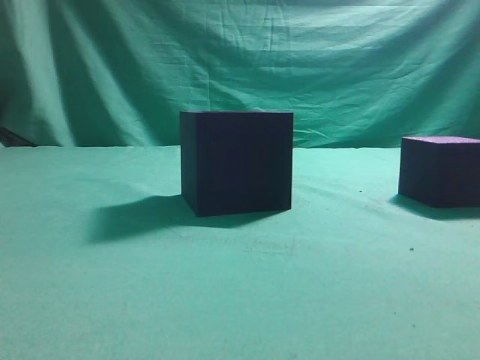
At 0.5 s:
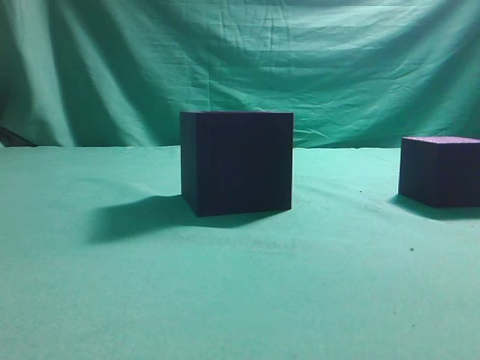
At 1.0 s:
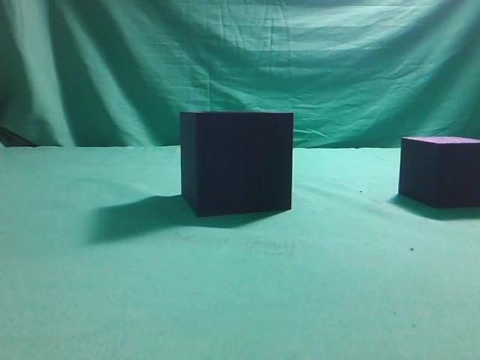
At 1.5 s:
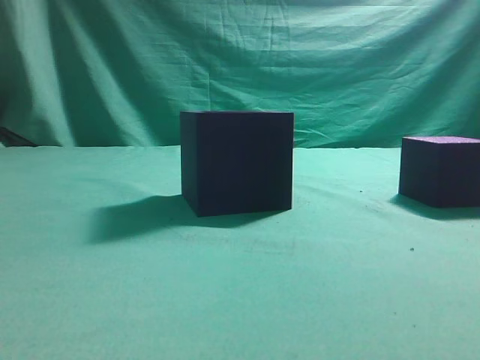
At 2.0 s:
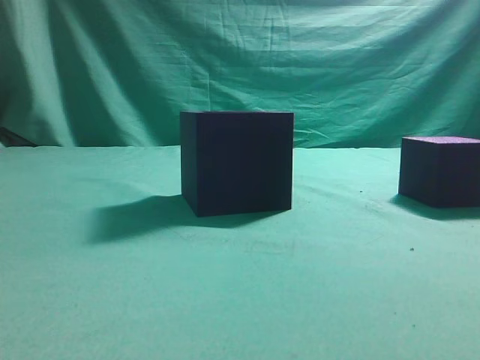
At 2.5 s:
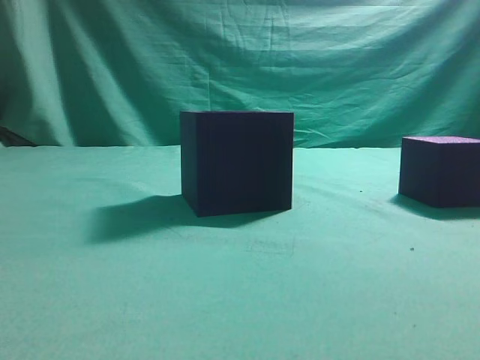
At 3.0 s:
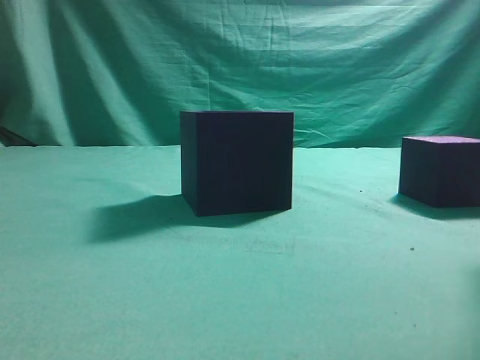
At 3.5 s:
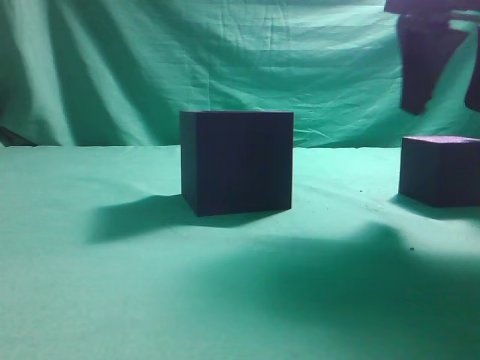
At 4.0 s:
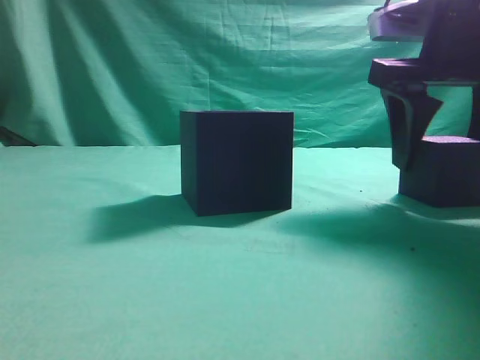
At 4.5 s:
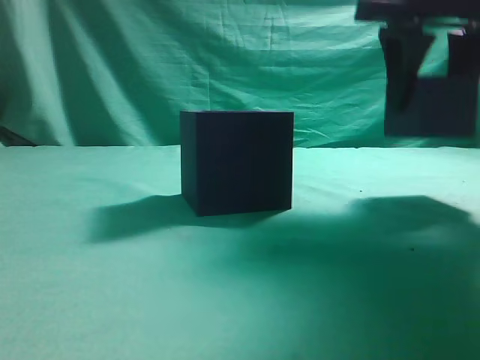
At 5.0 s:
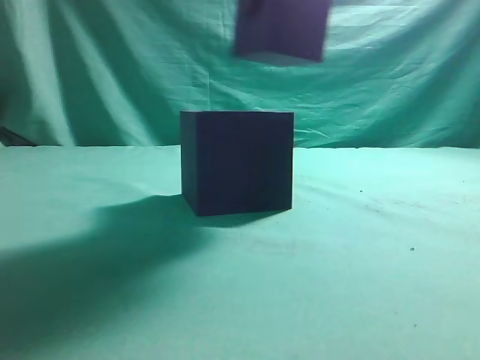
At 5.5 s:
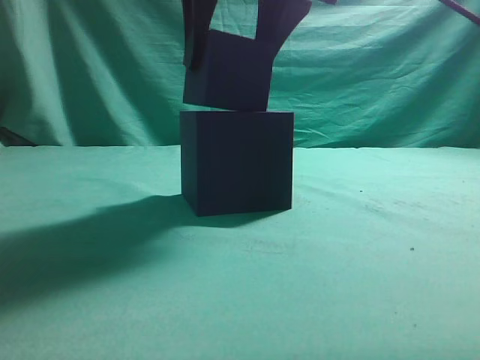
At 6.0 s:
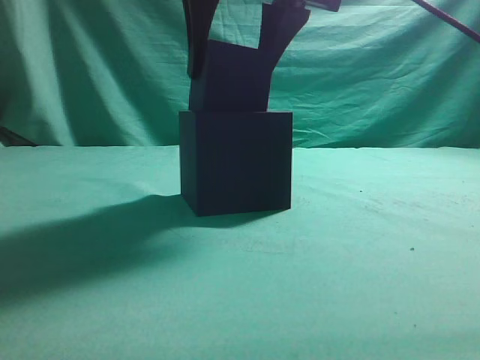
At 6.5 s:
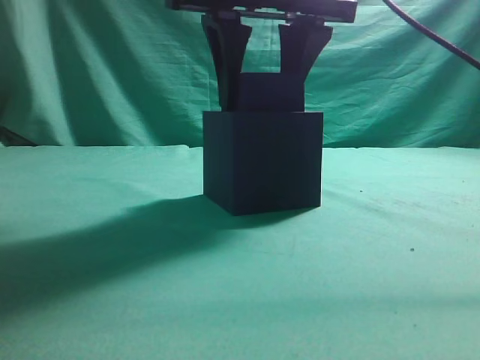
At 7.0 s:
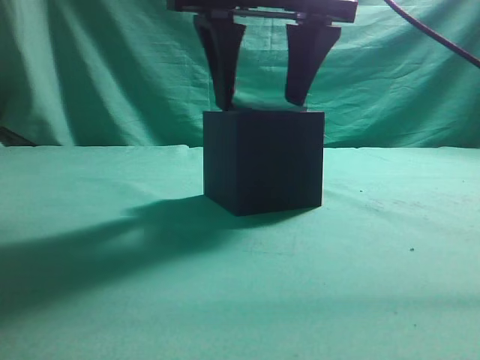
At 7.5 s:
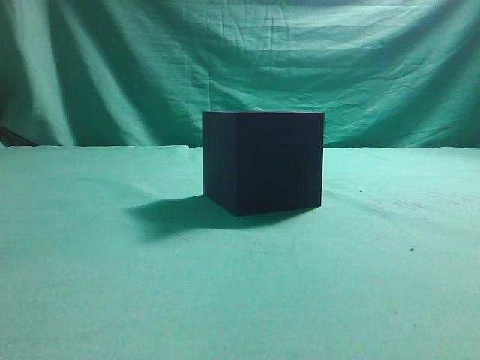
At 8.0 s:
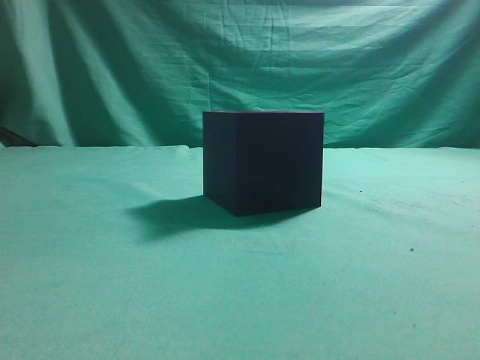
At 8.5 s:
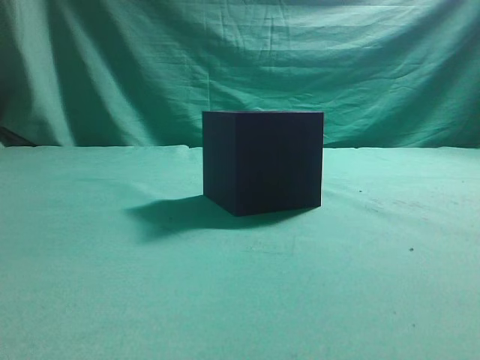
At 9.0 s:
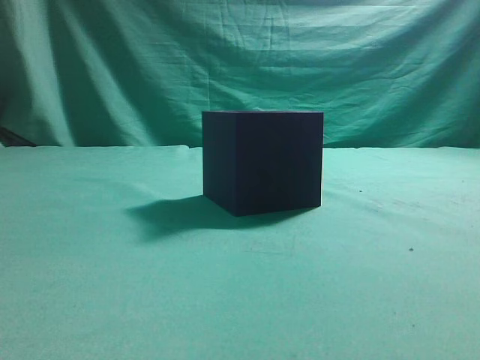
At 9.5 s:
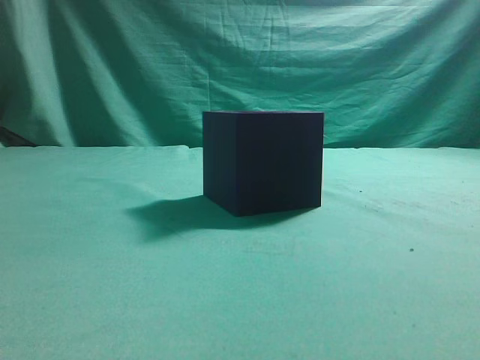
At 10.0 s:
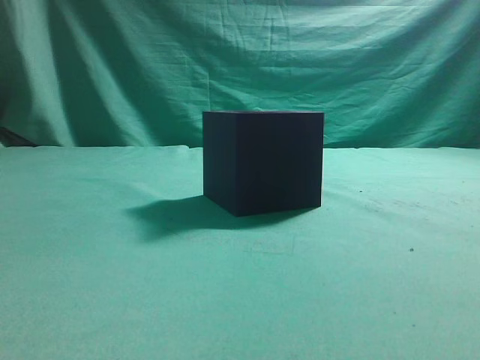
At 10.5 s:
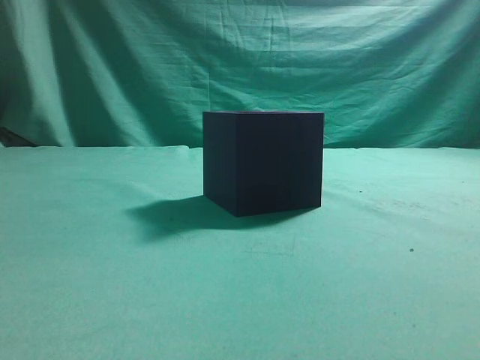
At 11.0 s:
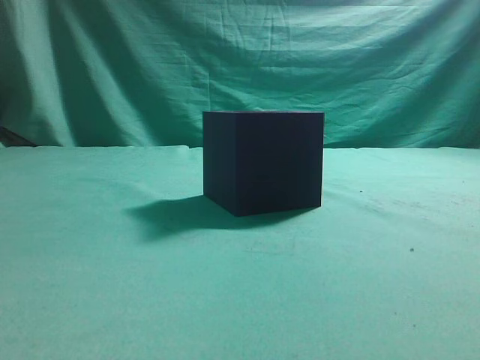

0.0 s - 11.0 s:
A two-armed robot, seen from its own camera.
Task of the whole recording: pick up the cube block and place it into the cube groove.
Step, 0.0 s - 4.0 s: Grasp the cube.
Step, 4.5 s - 7.0 s: Place cube into the cube-shaped recess.
2.0 s - 3.5 s: The right gripper travels forward and to the left by some 25 cm, and opens its fingers.
3.5 s - 5.5 s: The right gripper travels to the left by about 15 cm.
5.5 s - 7.5 s: The right gripper shifts roughly 10 cm upward, and closes.
